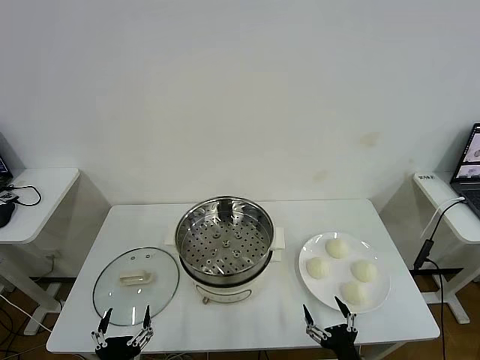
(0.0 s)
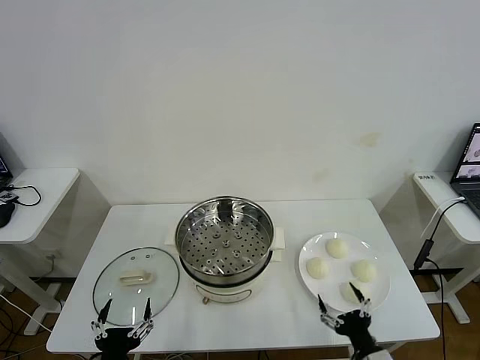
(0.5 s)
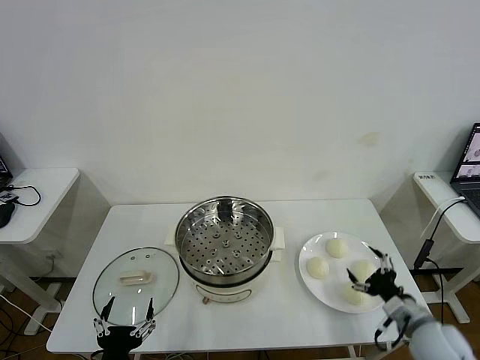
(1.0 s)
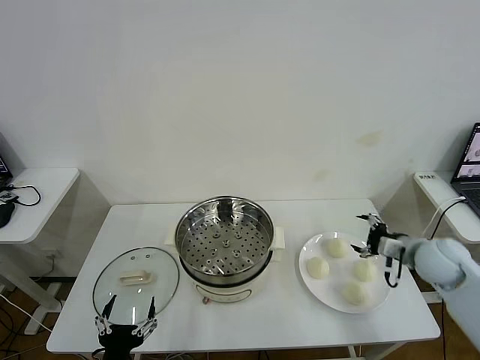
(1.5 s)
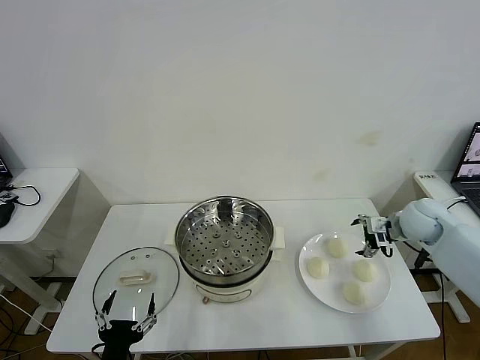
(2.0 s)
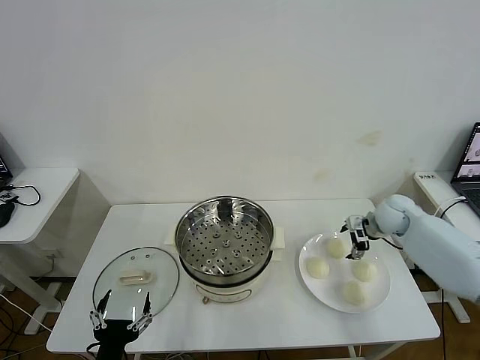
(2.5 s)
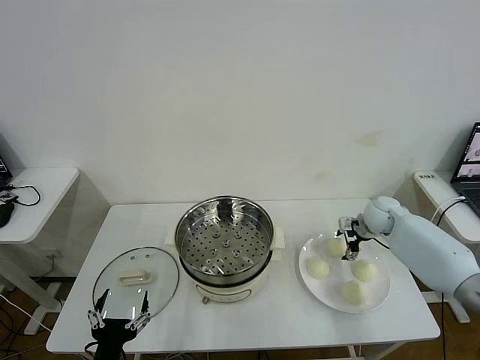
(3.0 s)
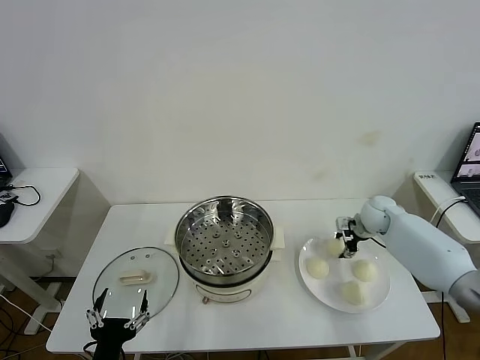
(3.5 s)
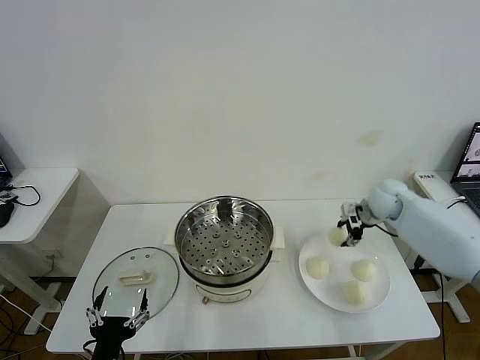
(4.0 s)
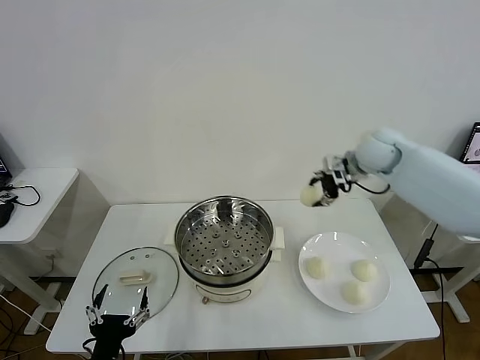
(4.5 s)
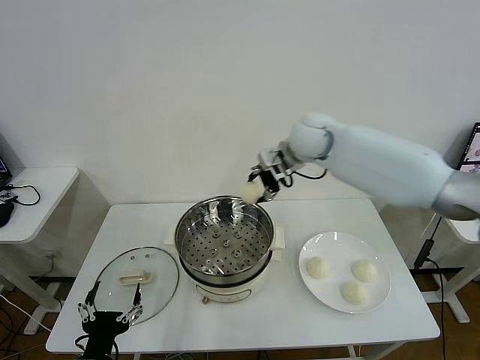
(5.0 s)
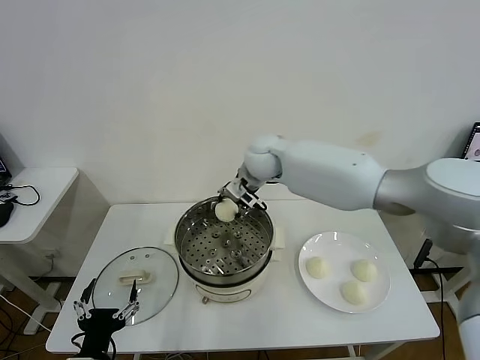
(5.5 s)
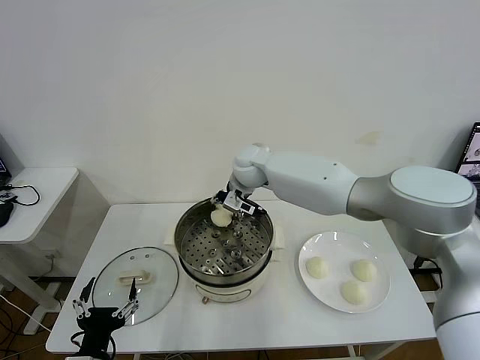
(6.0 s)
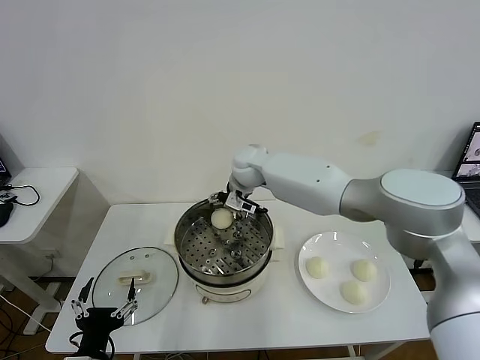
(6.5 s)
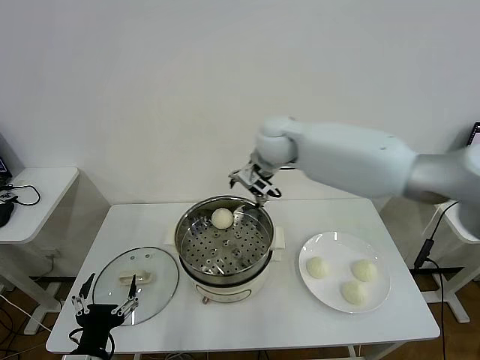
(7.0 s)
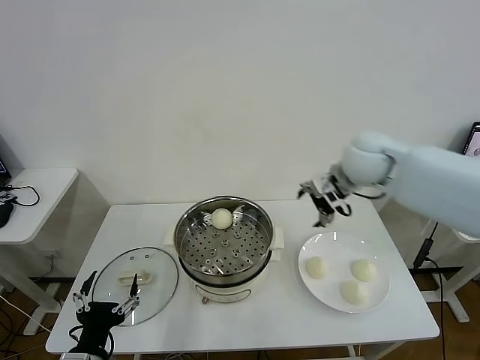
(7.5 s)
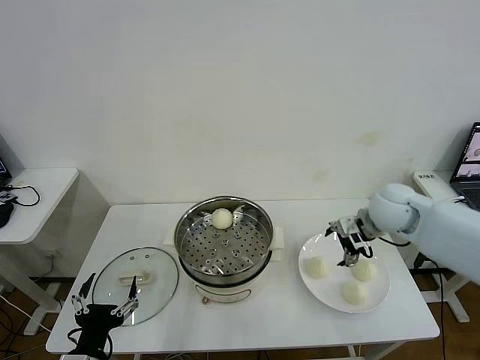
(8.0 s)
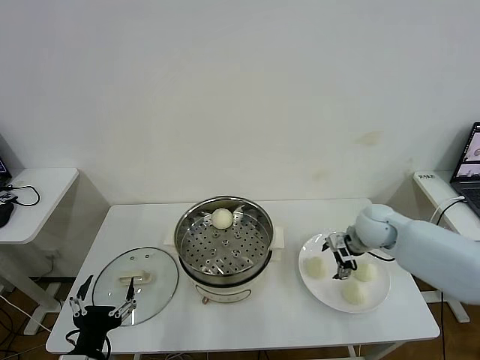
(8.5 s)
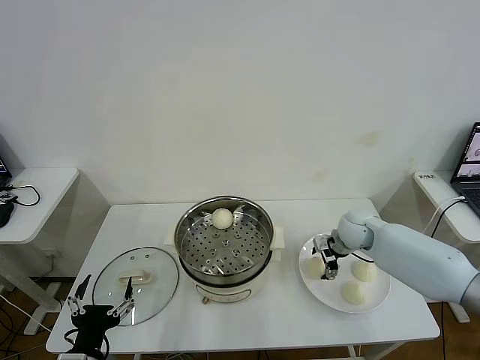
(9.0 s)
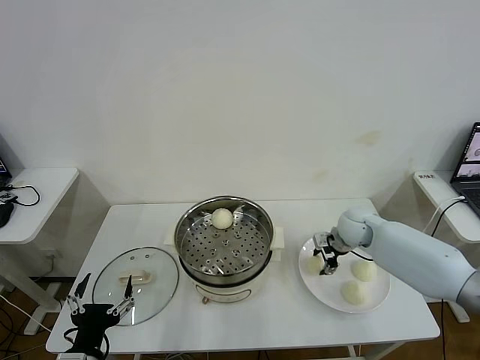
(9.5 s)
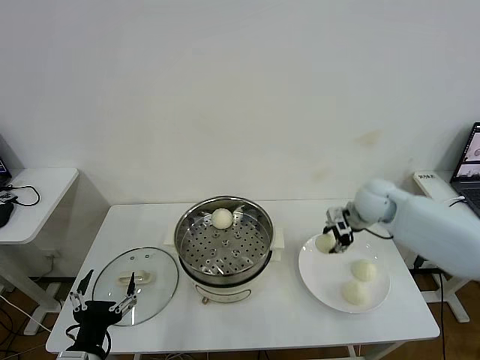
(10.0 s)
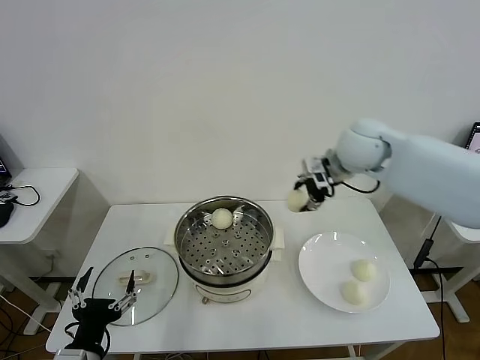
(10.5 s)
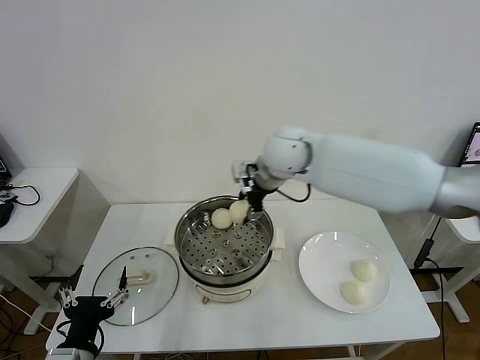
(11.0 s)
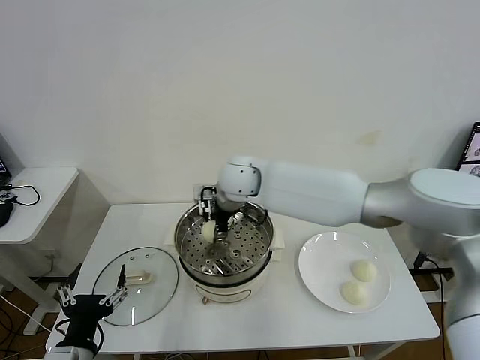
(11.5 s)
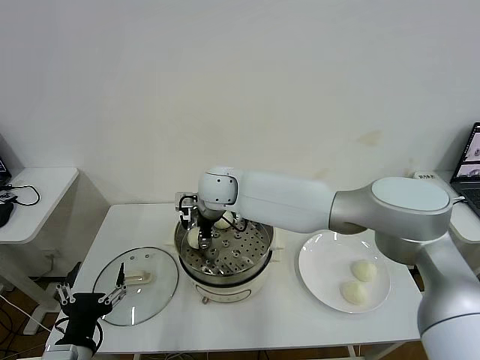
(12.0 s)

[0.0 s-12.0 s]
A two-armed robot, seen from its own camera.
Task of the whole recording: take steamed baozi put them in steamer then cover it.
Step, 0.0 to 3.5 s: Grasp the baozi in the plate with right gripper.
Step, 4.0 to 6.5 s: Place the baozi on the steamer with right gripper.
Step, 7.0 to 9.5 s: Grasp the baozi in the plate with right gripper.
2.0 to 4.0 s: The right gripper is displaced forward by roughly 10 cm, and closes up.
4.0 to 6.0 s: The right gripper travels to the left by some 35 cm.
6.0 to 8.0 s: The right gripper goes about 30 cm to the right and backward, and opens up.
8.0 to 10.0 s: The right gripper travels forward by approximately 5 cm, reaches approximately 10 cm downward, then returns, and closes.
10.0 to 12.0 s: The right gripper goes some 35 cm to the left.

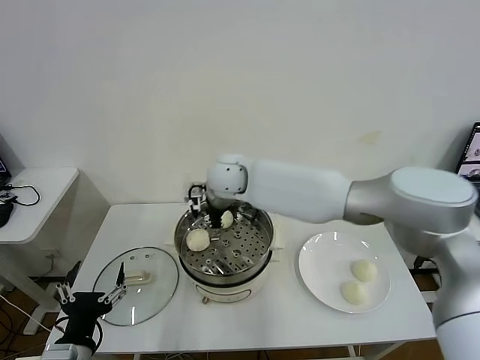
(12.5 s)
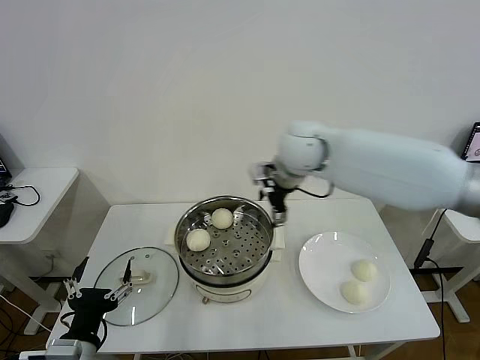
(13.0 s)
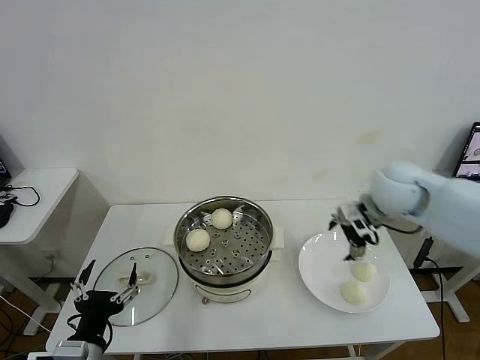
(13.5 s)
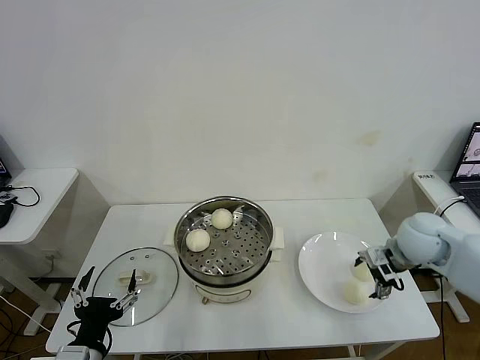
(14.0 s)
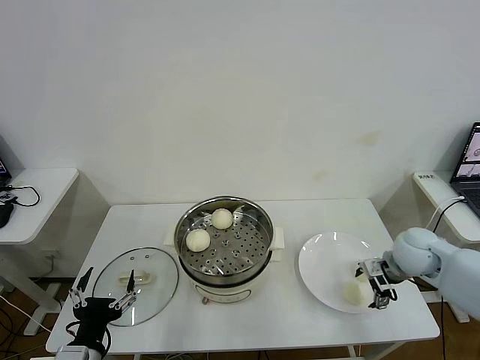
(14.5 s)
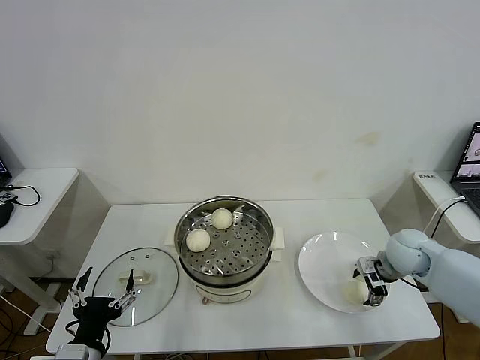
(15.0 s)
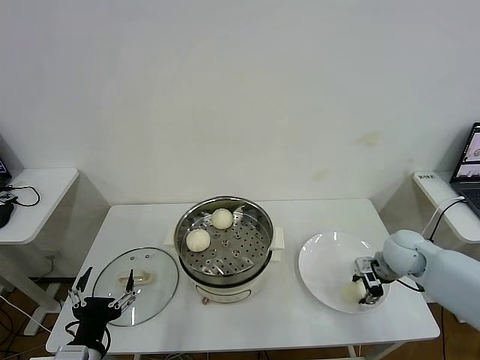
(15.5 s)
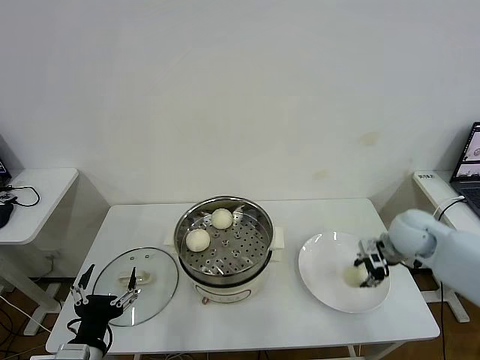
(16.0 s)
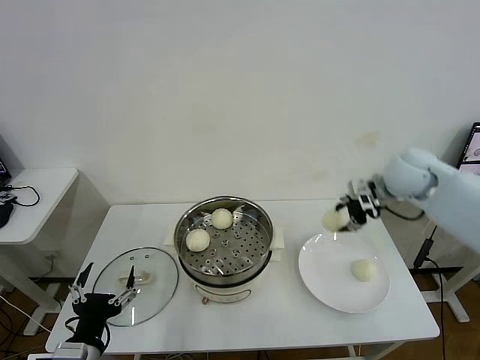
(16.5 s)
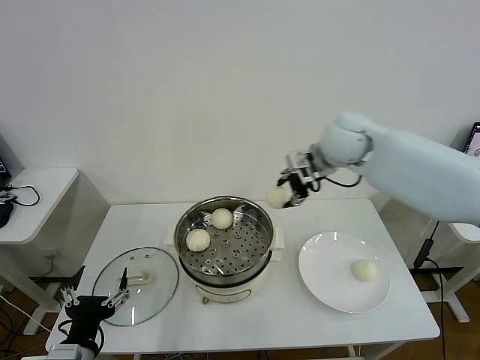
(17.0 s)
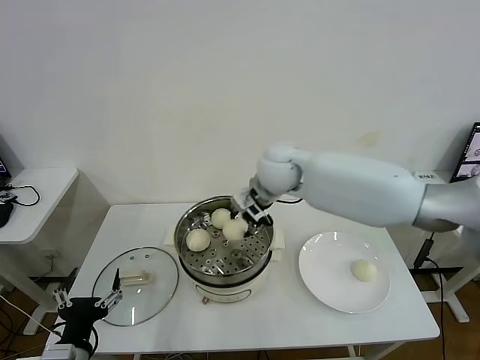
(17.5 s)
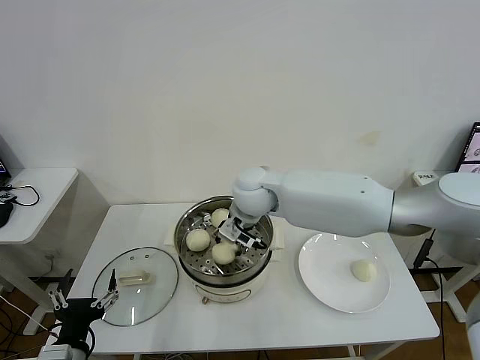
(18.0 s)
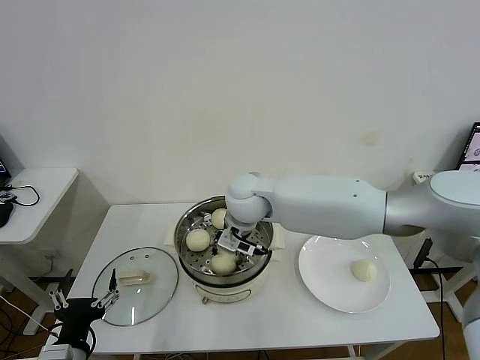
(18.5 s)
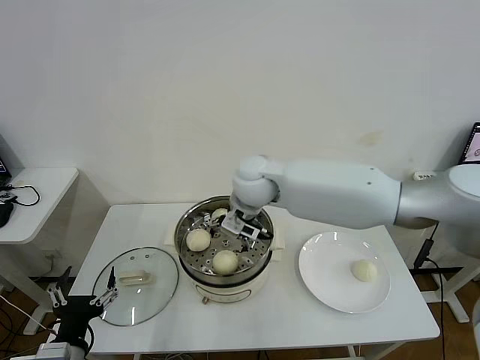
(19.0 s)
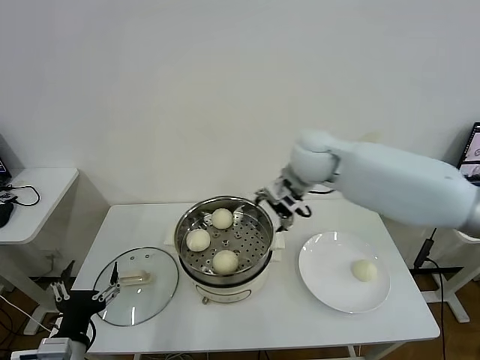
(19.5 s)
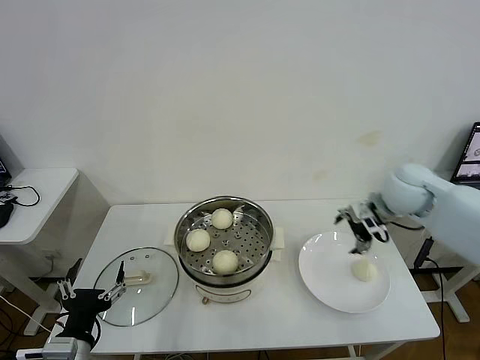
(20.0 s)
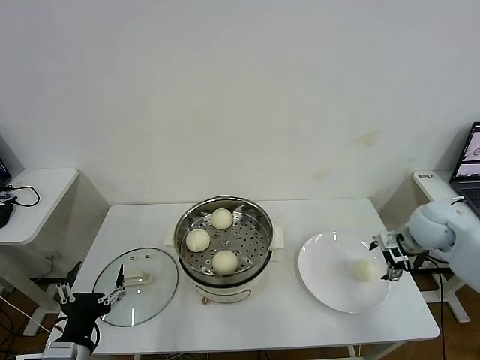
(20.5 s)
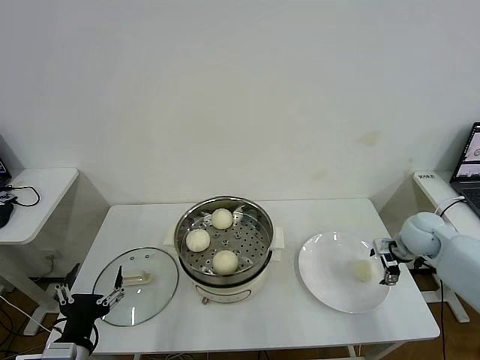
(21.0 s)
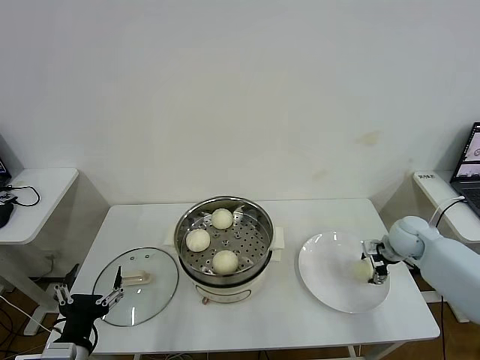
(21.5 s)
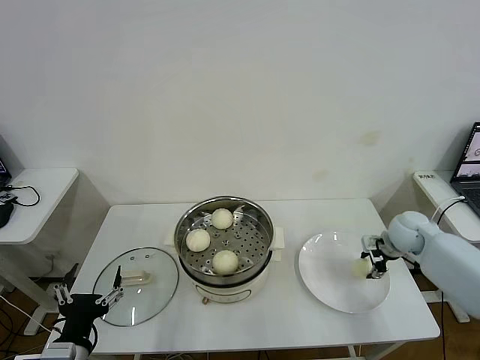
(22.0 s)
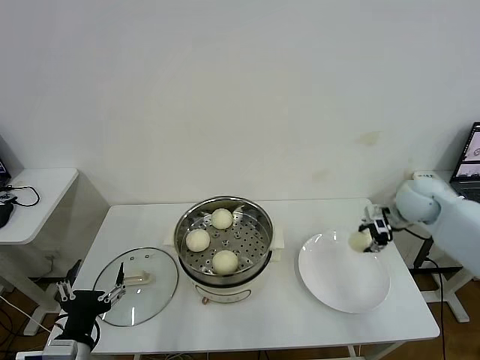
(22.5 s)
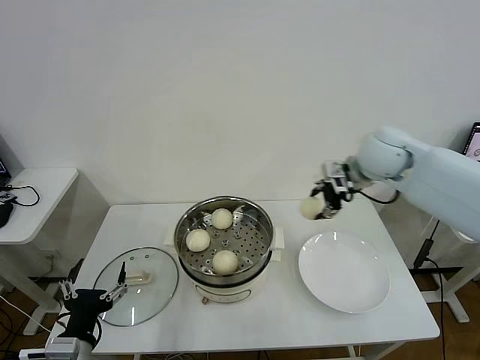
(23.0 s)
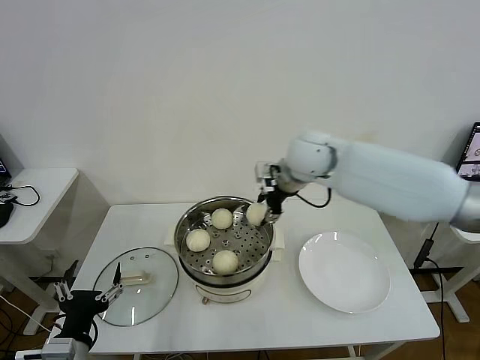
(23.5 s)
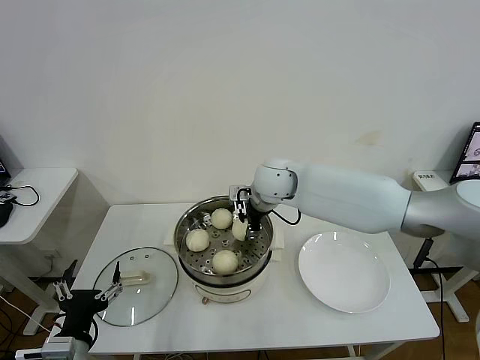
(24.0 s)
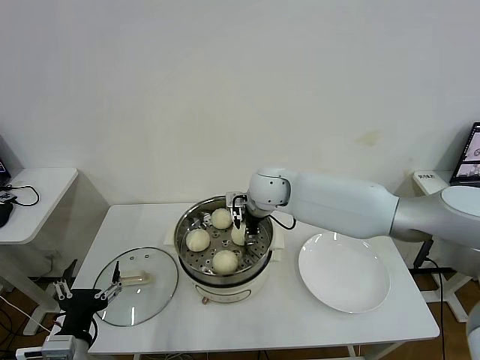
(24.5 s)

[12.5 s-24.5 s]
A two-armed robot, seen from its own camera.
Task of the whole recording: take steamed baozi put them in steamer then cover it.
Step, 12.5 to 15.5 s: Grasp the baozi in the plate with right gripper.
Step, 16.0 to 18.5 s: Place the baozi on the steamer with right gripper.
Step, 19.0 to 22.0 s: Grasp the baozi in the plate with right gripper.
12.5 to 14.5 s: The right gripper heads to the right, covering roughly 40 cm.
14.5 to 16.5 s: The right gripper travels upward and forward by roughly 15 cm, and closes its fingers.
16.5 to 18.5 s: The right gripper is displaced to the left by some 30 cm.
18.5 to 20.5 s: The right gripper travels to the right by roughly 40 cm, and opens its fingers.
20.5 to 22.5 s: The right gripper reaches roughly 10 cm downward, then returns, and closes its fingers.
22.5 to 24.5 s: The right gripper heads to the left, covering roughly 35 cm, and opens.

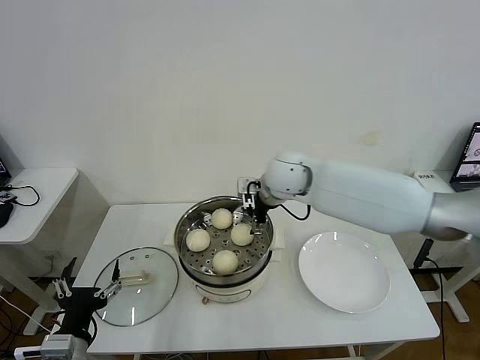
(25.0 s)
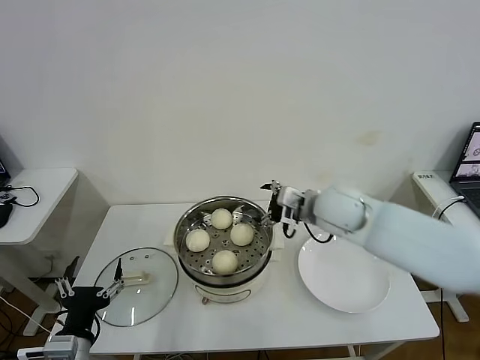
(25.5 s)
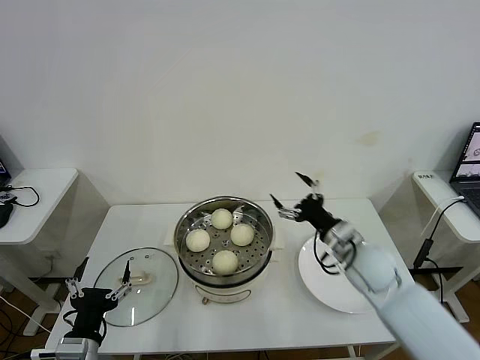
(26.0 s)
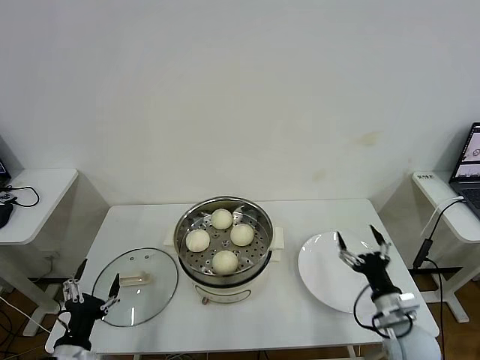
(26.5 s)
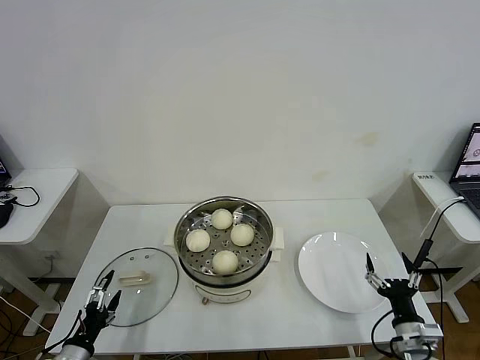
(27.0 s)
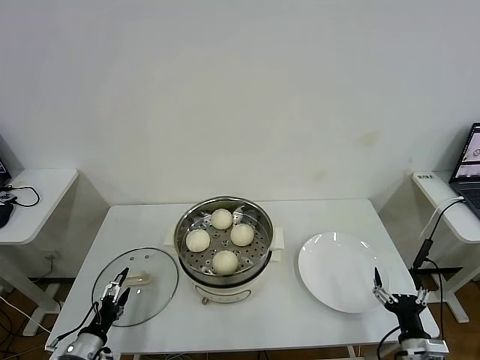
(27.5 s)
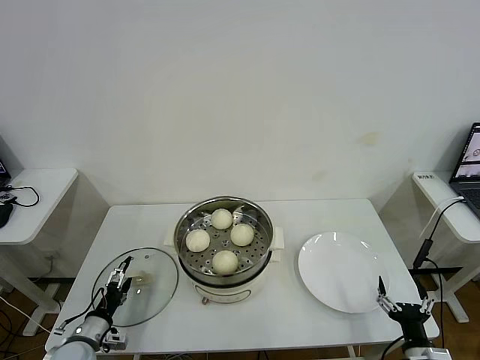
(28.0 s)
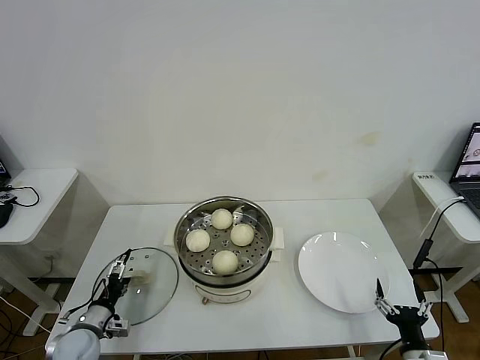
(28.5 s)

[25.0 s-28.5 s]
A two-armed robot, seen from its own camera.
Task of the whole recording: take steamed baozi put them in steamer then cover it.
25.0 to 27.0 s: The right gripper travels backward, to the right and downward by roughly 50 cm; the left gripper shifts approximately 15 cm downward and to the left.
27.0 to 28.5 s: The right gripper travels backward by some 5 cm; the left gripper shifts approximately 10 cm forward.
